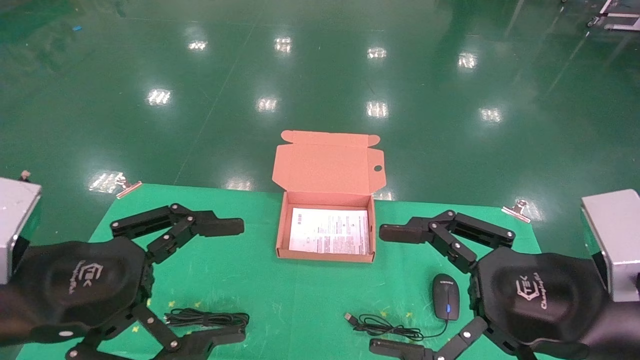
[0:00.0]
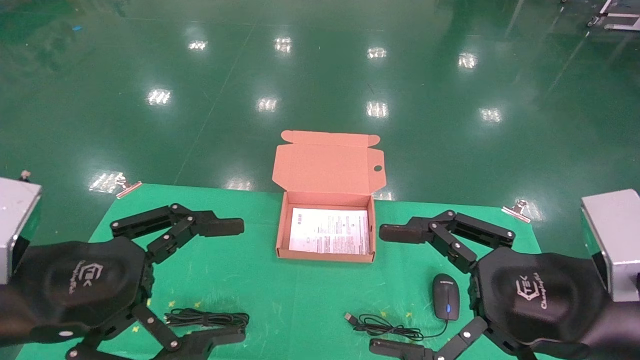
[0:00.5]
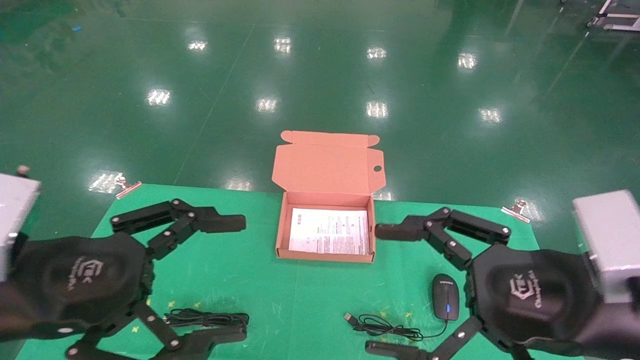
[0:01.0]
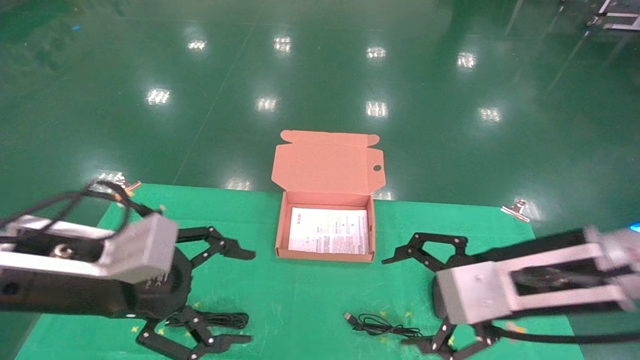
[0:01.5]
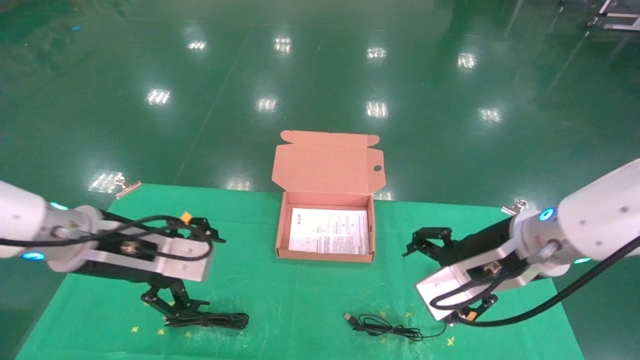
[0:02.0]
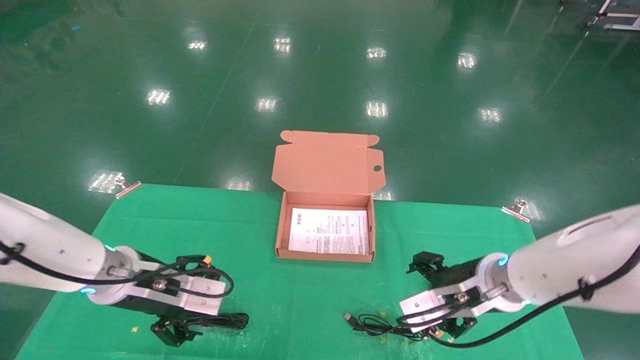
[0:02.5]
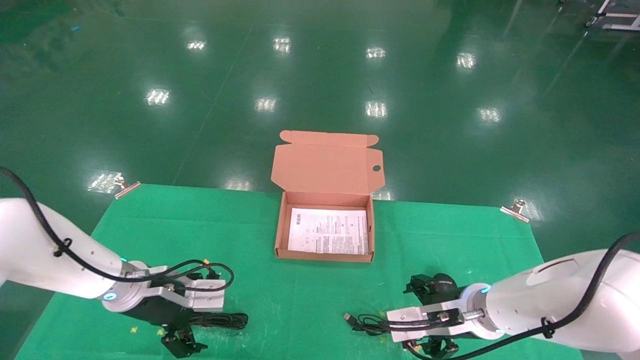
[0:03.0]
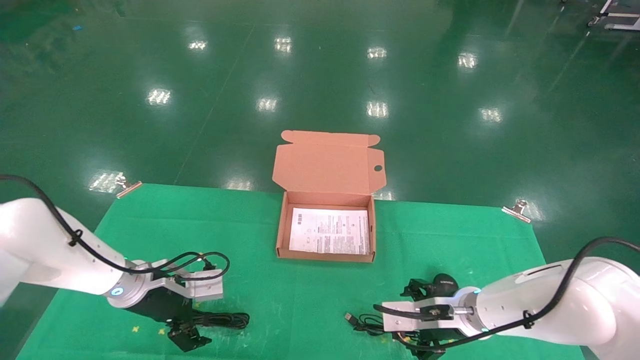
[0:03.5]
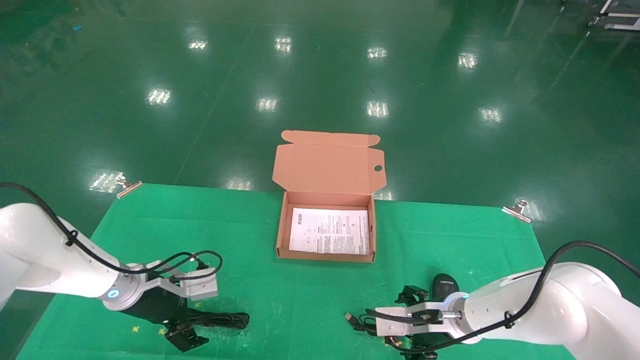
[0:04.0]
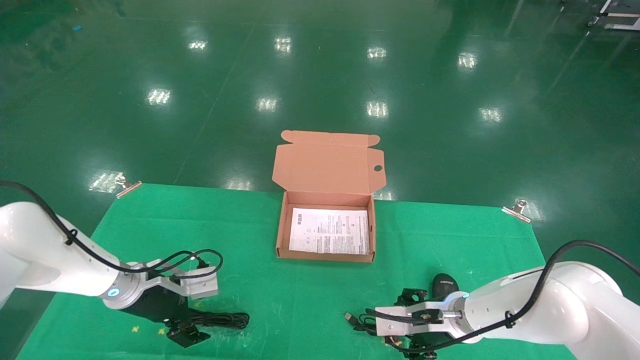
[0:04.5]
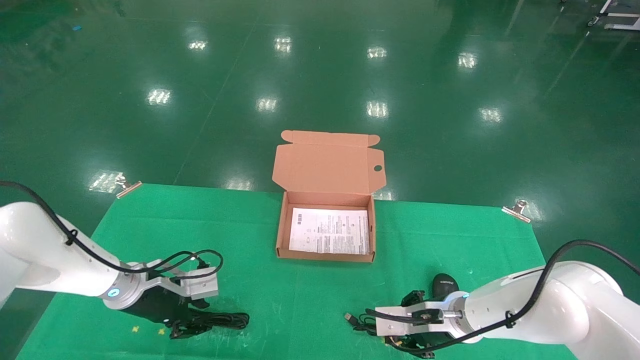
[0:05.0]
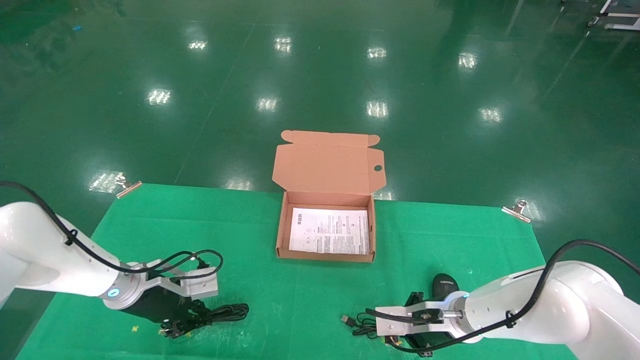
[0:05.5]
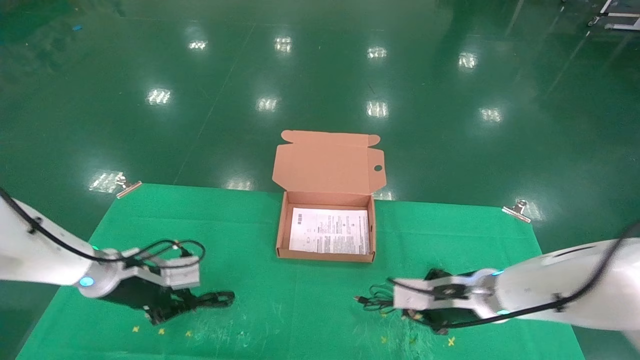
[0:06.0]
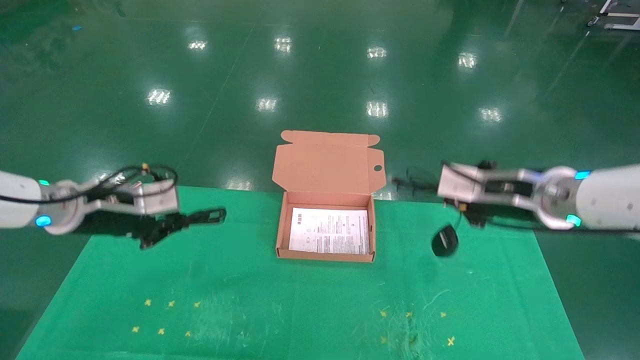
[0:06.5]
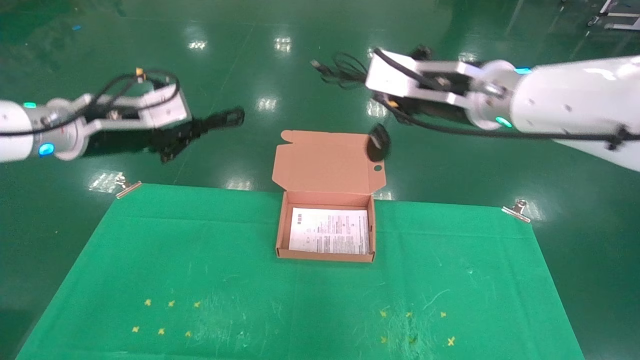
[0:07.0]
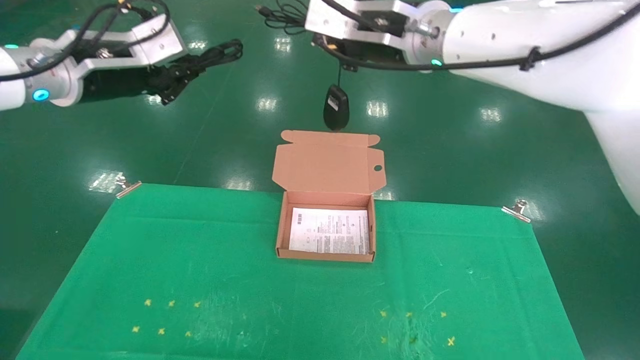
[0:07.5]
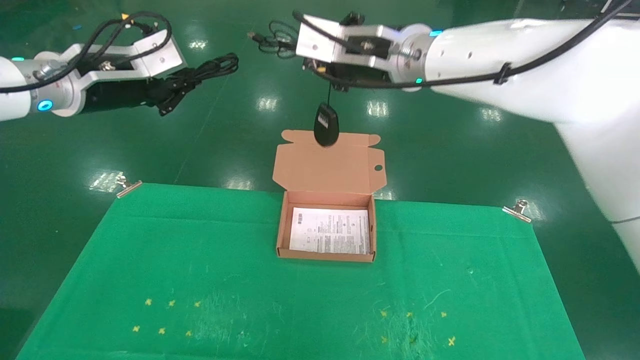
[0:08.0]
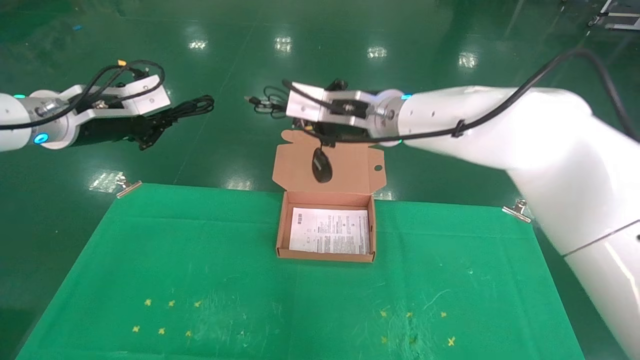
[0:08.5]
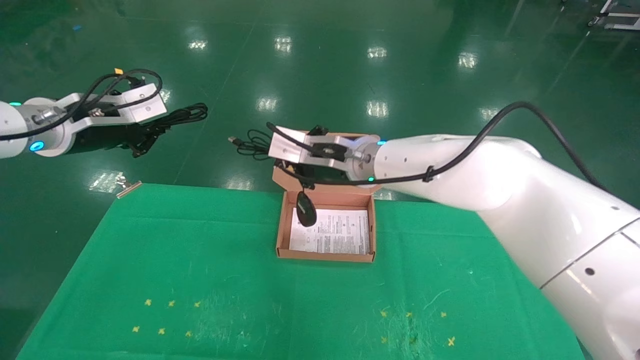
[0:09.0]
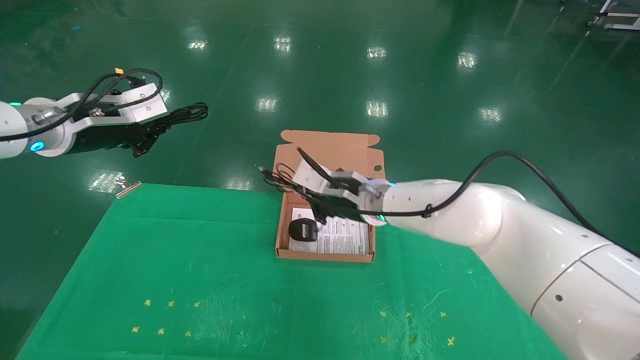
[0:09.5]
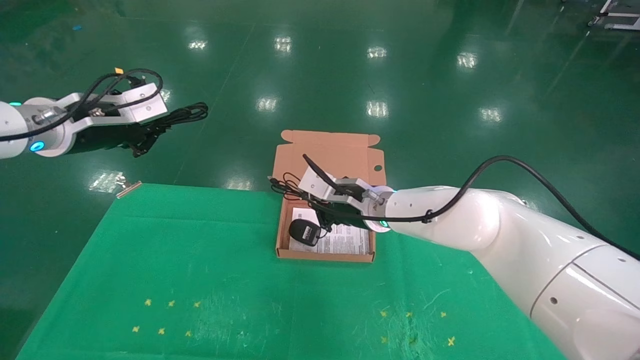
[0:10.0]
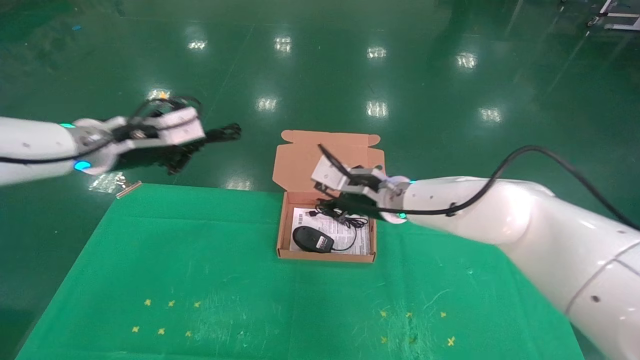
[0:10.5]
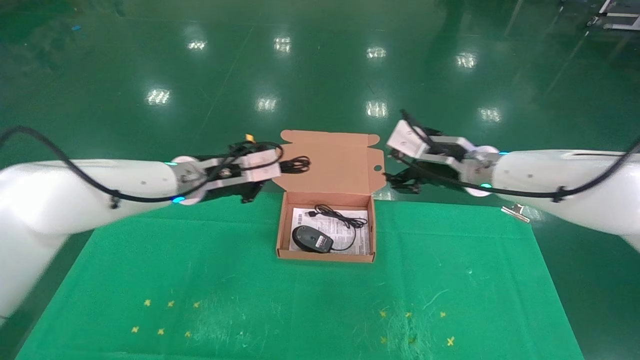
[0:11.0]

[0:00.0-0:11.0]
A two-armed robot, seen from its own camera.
Task of the whole recording: grasp data cable left put into box grasp mouse right put into box.
Step, 0:01.0 to 0:05.0: Grab and pick up both the mouse and power cord from the accessory packaging area at the same time.
0:00.0 to 0:02.0: The grippers both shift forward by about 10 cm.
0:02.0 to 0:03.5: The grippers both shift downward and forward by approximately 15 cm.
0:03.5 to 0:05.5: The left gripper closes its fingers. The right gripper closes its fingers.
0:05.5 to 0:07.5: Both grippers travel together upward, roughly 35 cm.
0:07.5 to 0:09.0: The left gripper goes approximately 5 cm downward, while the right gripper goes approximately 15 cm downward.
0:09.0 to 0:11.0: The right gripper moves to the right, about 15 cm, and opens its fingers; the left gripper travels to the right and downward by some 20 cm.

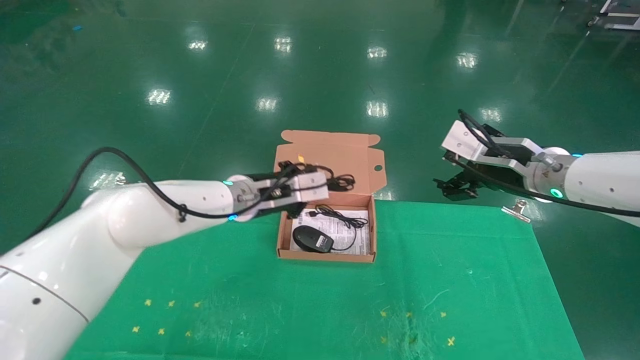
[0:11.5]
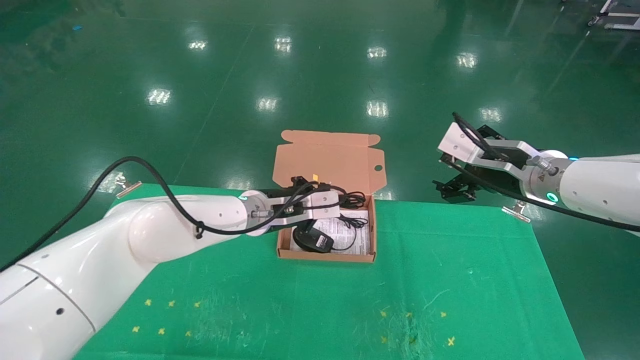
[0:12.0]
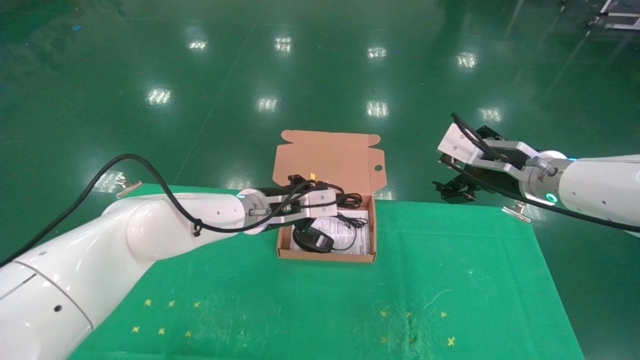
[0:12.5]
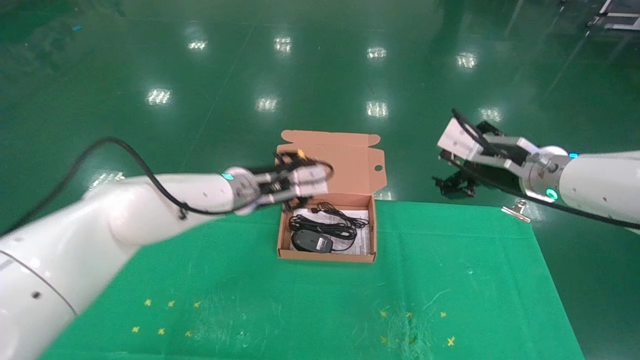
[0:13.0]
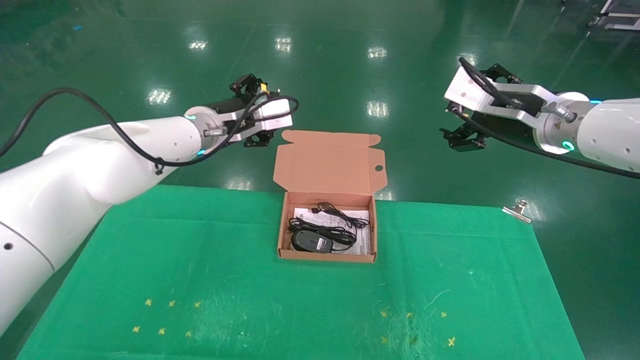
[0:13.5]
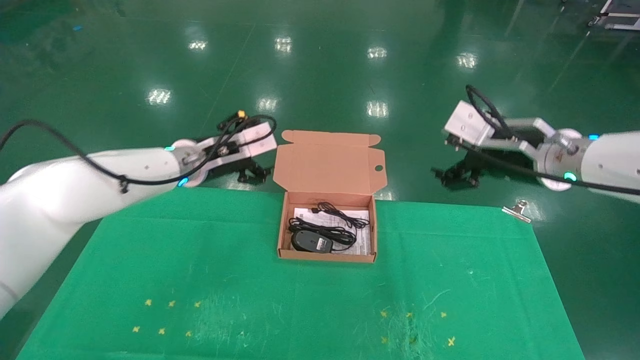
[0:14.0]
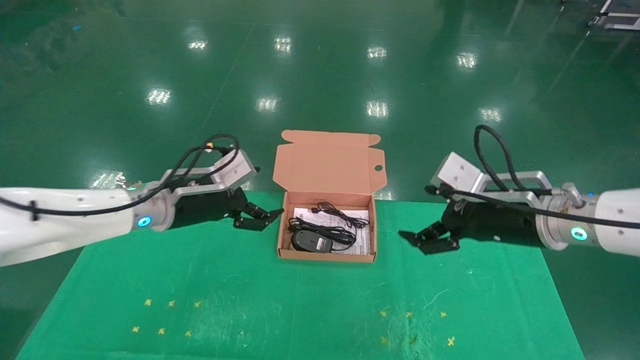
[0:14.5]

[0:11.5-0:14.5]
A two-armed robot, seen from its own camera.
Task of the whole recording: grasp data cable left put into box grasp mouse right put into box.
0:11.5 to 0:13.0: The left gripper opens up.
0:13.0 to 0:14.5: The right gripper shifts roughly 5 cm downward. Meanwhile the left gripper heads to the left and backward, covering some 10 cm, and opens up.

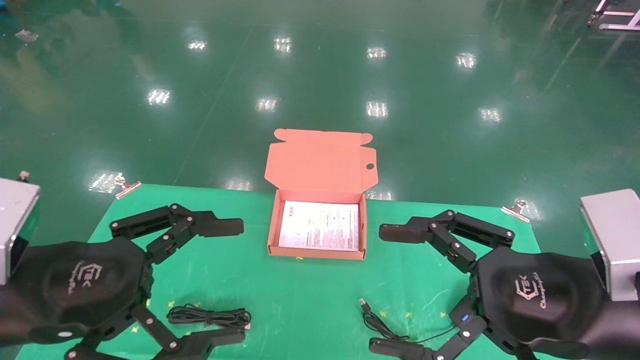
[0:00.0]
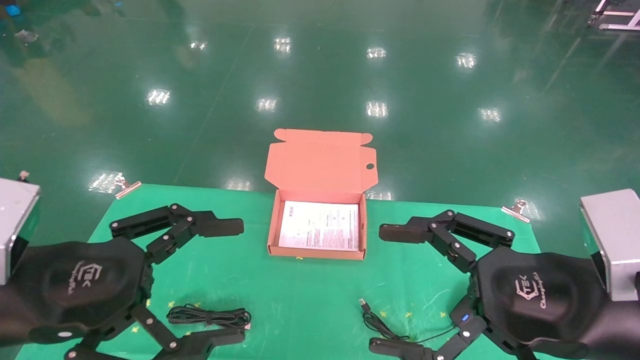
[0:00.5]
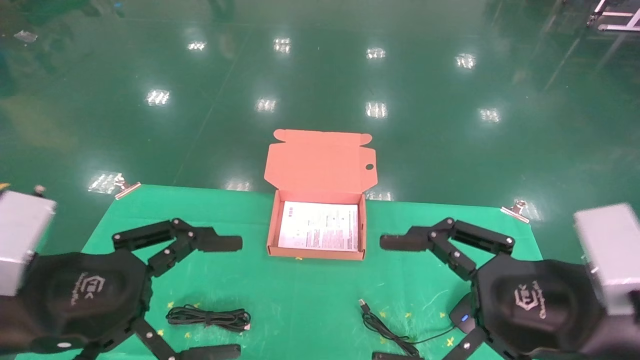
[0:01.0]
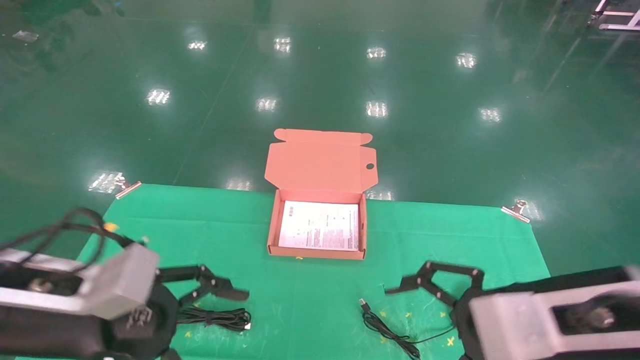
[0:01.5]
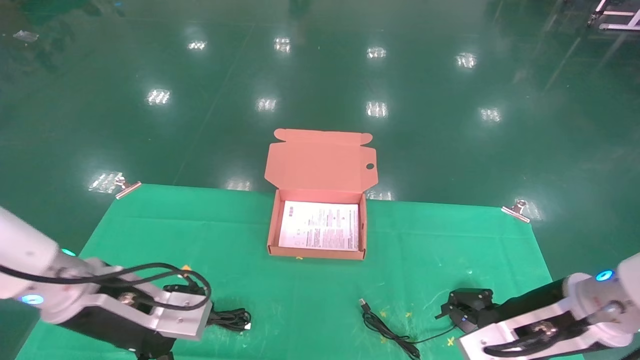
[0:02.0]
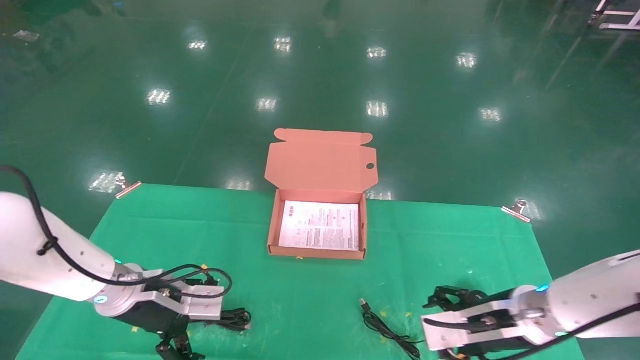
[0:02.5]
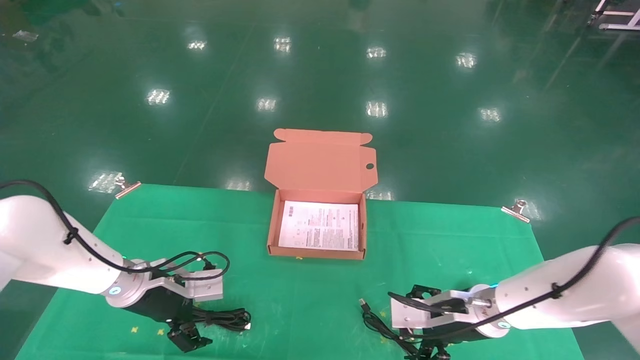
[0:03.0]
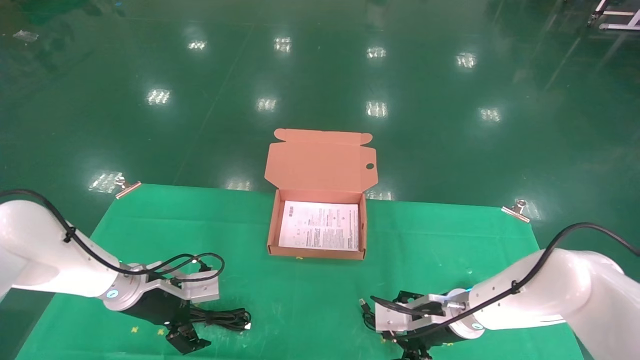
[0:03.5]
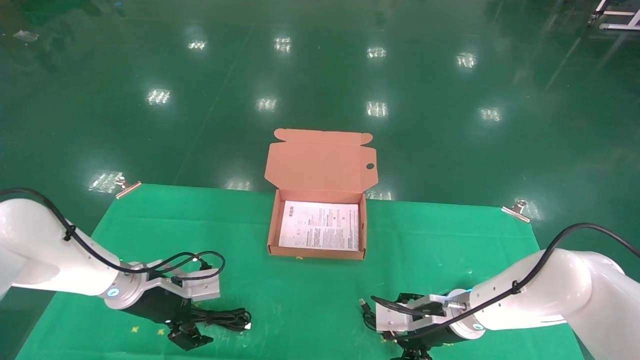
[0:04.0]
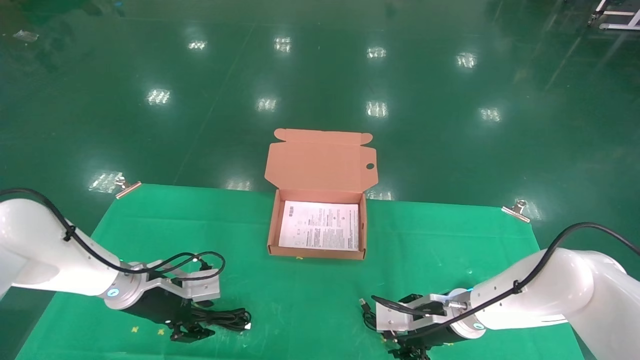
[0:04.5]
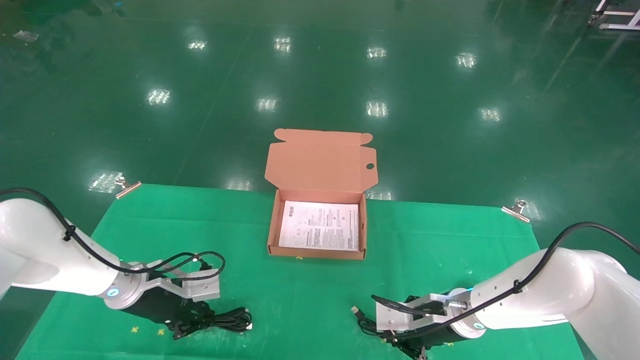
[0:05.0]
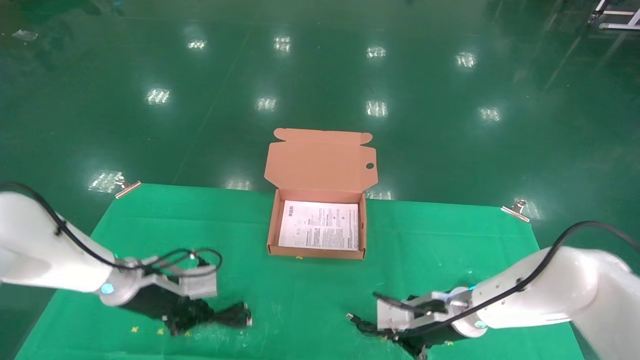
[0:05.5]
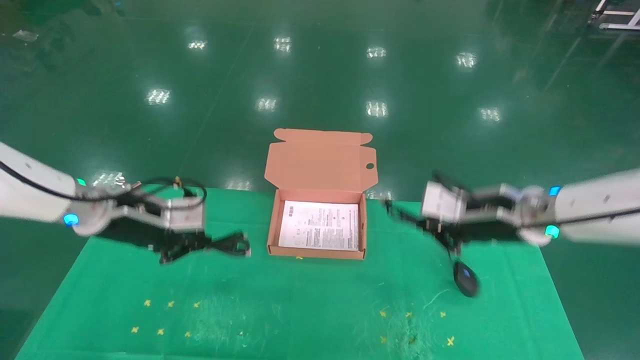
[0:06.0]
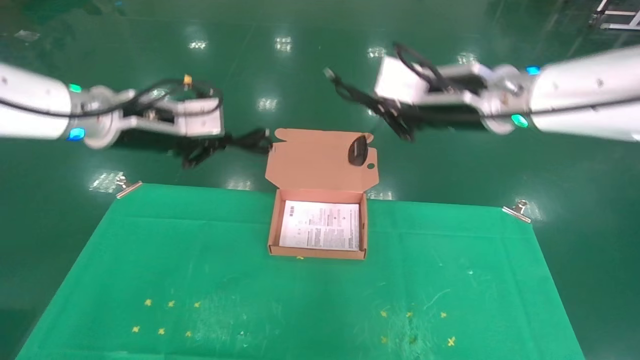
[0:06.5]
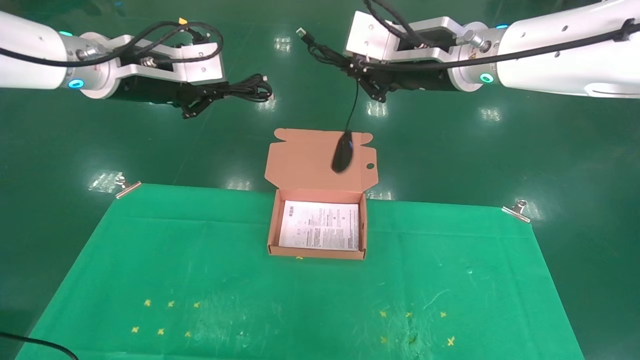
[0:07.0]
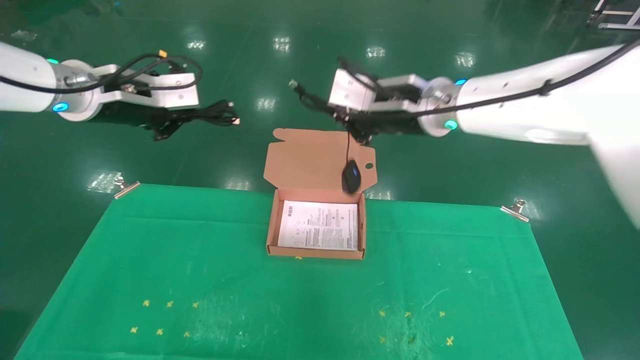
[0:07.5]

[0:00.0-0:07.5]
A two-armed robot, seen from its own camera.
Task of the whole recording: grasp data cable left put into box grasp mouse right put into box.
Step, 0:01.0 to 0:06.0: Grab and pick up both the mouse and power cord from the accessory packaging area at the same time.
0:00.0 to 0:02.0: The grippers both shift forward and downward by some 15 cm.
0:02.0 to 0:04.0: The right gripper heads forward, downward and to the left, covering approximately 20 cm; the left gripper shifts about 15 cm forward and downward.
0:04.0 to 0:05.5: The left gripper closes its fingers; the right gripper closes its fingers.
0:05.5 to 0:07.5: The two grippers go about 30 cm upward.
